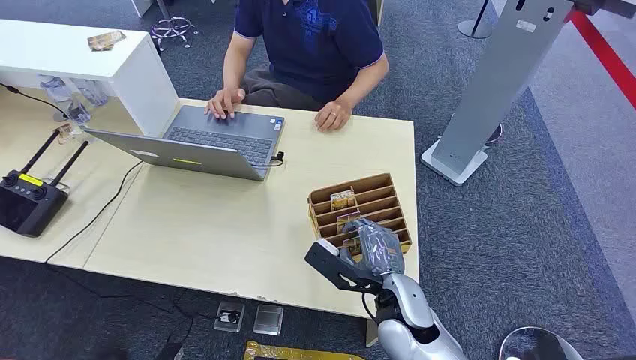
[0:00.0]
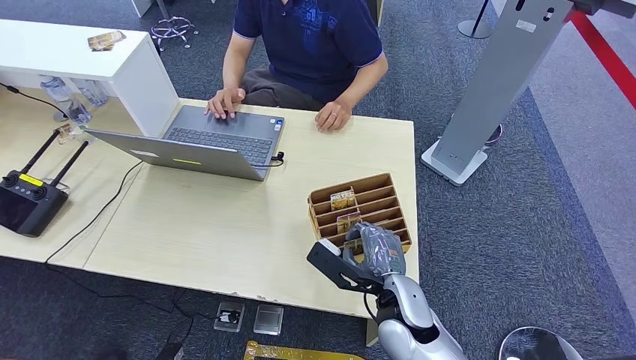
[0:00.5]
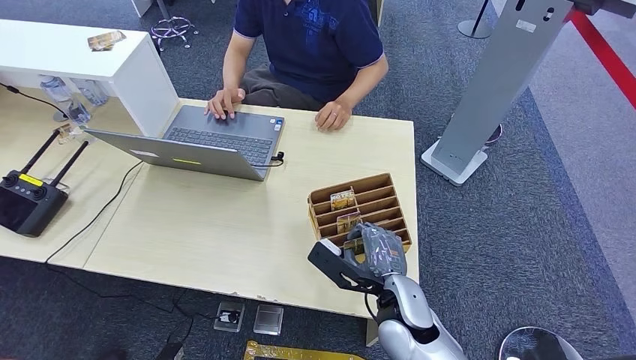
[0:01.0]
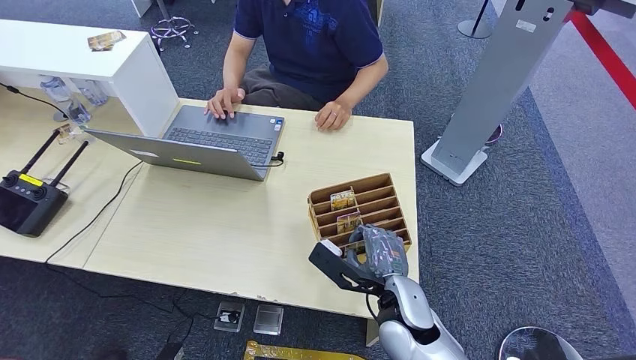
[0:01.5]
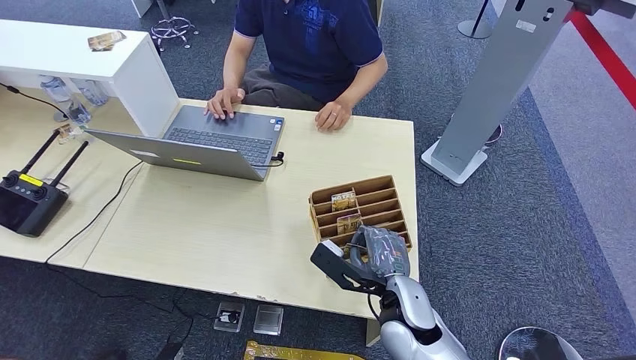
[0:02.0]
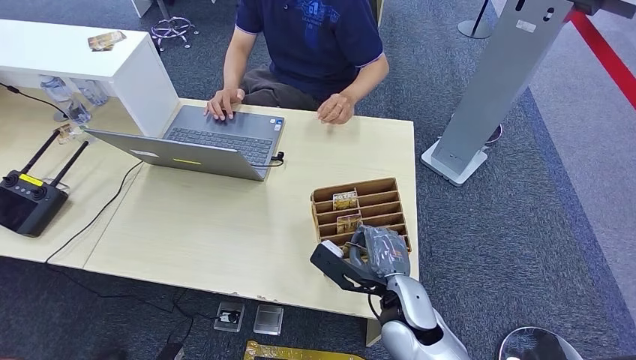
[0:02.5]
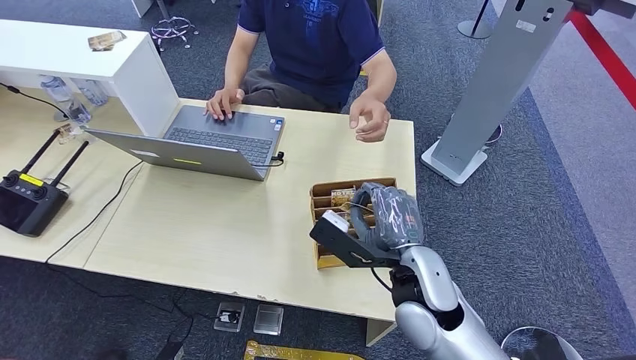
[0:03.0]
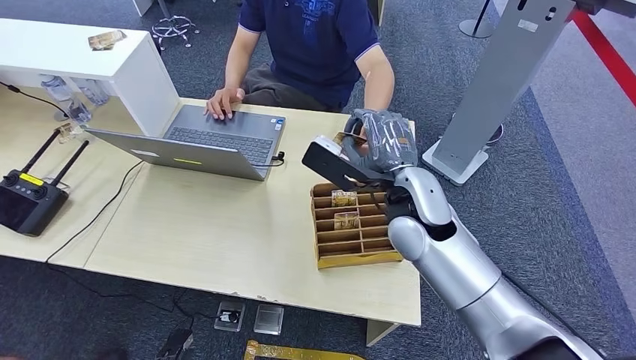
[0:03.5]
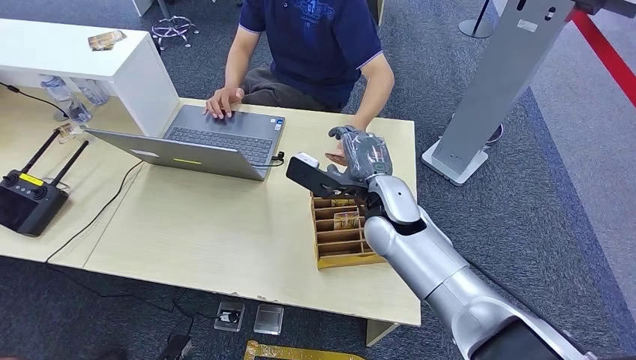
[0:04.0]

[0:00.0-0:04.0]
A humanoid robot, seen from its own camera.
Step, 0:00.0 to 0:02.5: Pick up the room card from the card holder.
Step, 0:03.5 to 0:04.0: Hand the room card to the target.
0:02.0 to 0:04.0: The right hand goes some 15 cm forward and upward.
